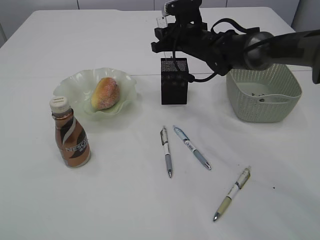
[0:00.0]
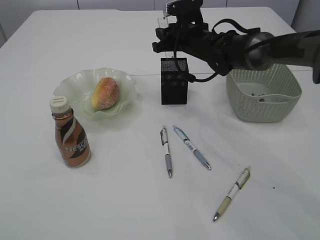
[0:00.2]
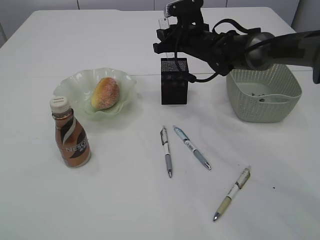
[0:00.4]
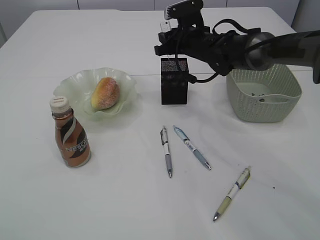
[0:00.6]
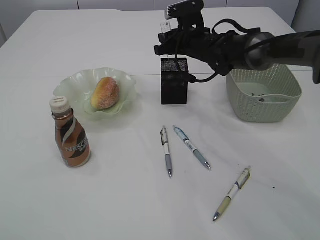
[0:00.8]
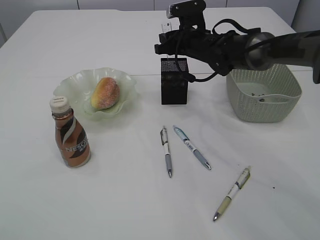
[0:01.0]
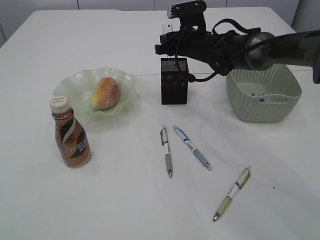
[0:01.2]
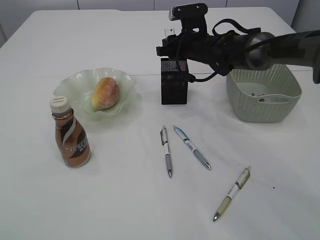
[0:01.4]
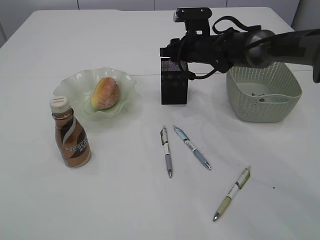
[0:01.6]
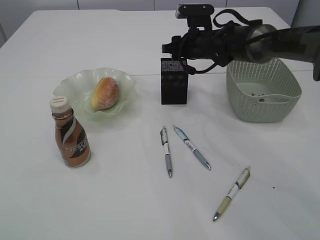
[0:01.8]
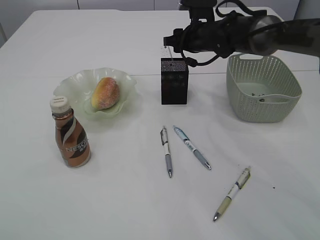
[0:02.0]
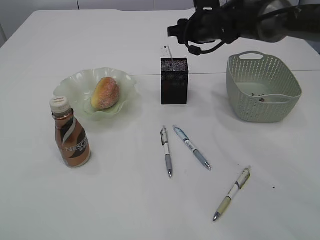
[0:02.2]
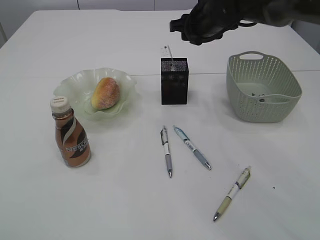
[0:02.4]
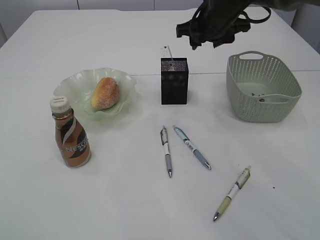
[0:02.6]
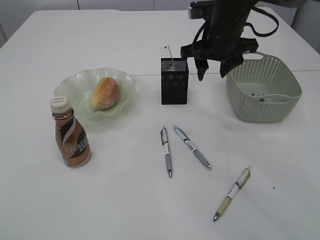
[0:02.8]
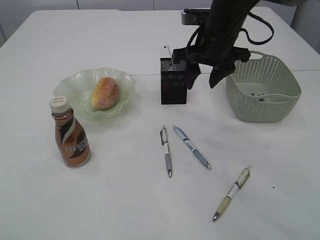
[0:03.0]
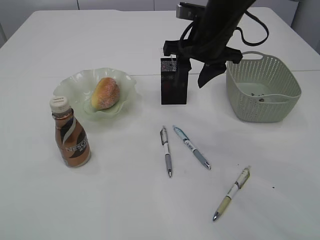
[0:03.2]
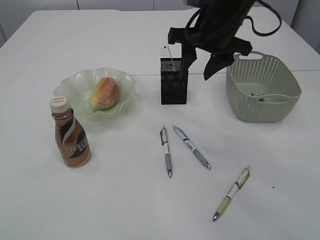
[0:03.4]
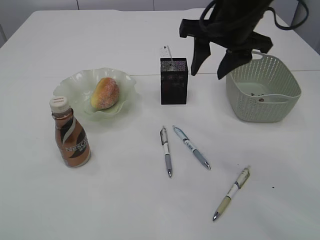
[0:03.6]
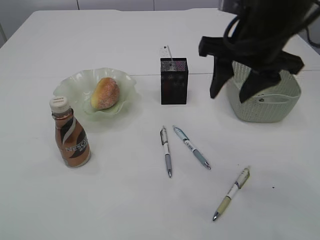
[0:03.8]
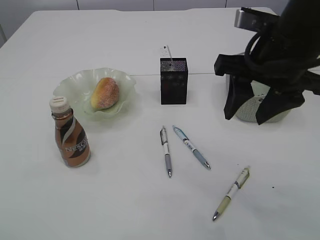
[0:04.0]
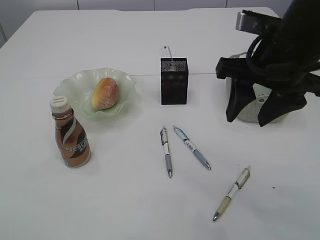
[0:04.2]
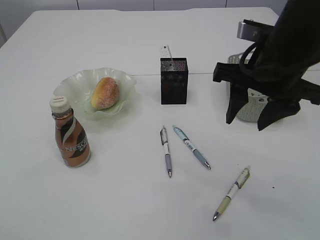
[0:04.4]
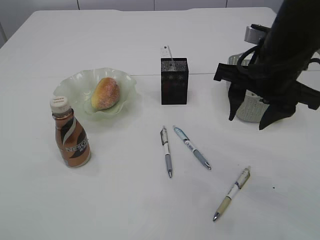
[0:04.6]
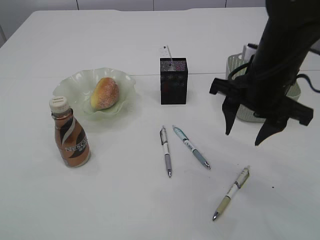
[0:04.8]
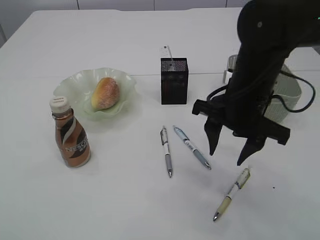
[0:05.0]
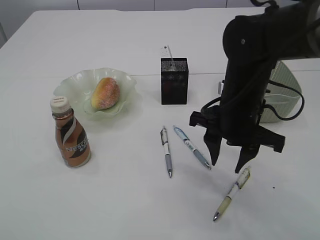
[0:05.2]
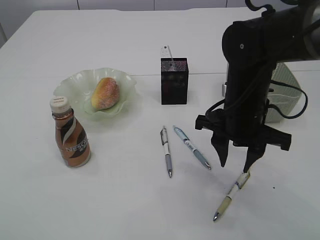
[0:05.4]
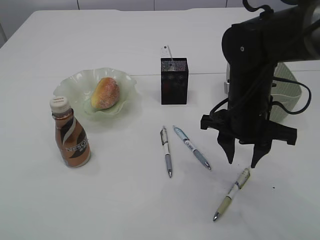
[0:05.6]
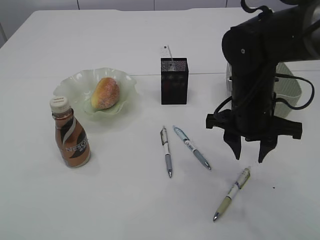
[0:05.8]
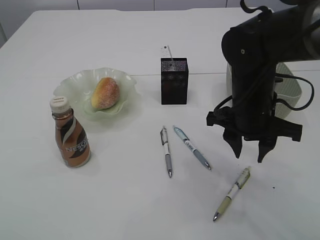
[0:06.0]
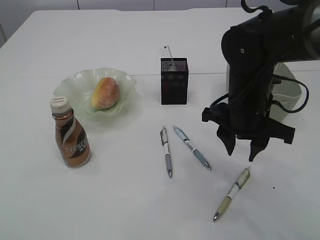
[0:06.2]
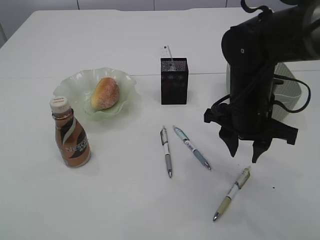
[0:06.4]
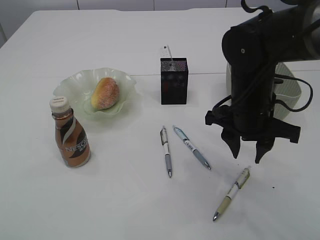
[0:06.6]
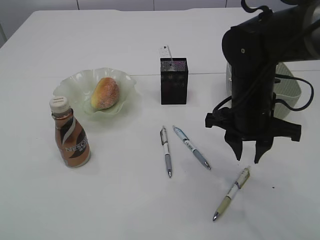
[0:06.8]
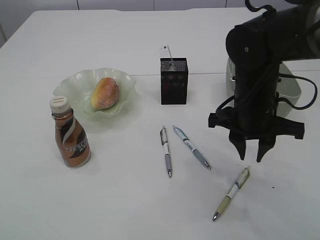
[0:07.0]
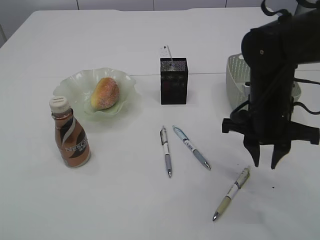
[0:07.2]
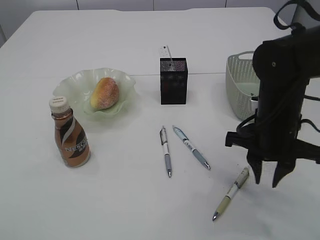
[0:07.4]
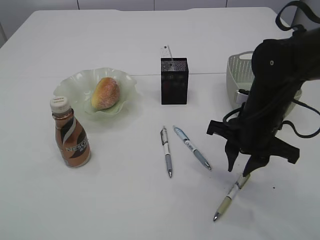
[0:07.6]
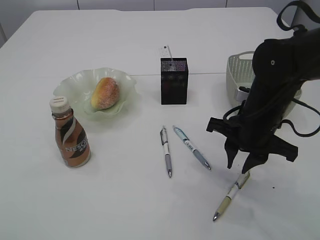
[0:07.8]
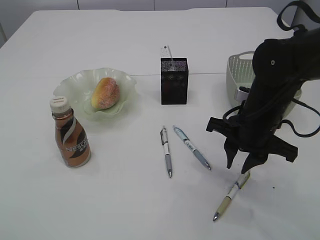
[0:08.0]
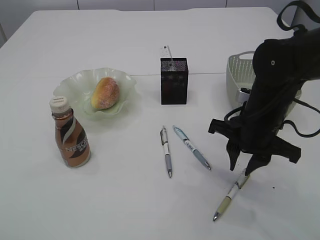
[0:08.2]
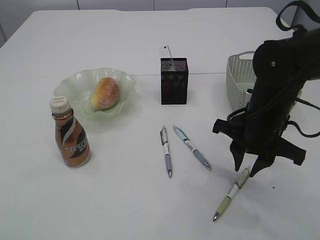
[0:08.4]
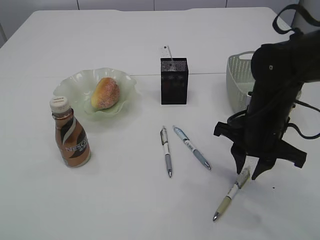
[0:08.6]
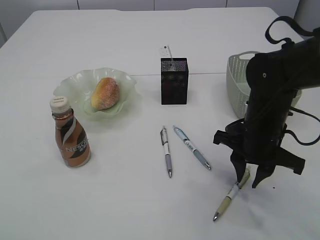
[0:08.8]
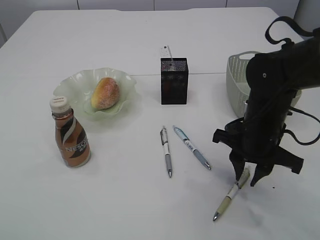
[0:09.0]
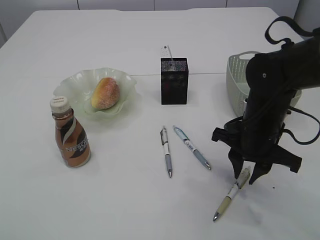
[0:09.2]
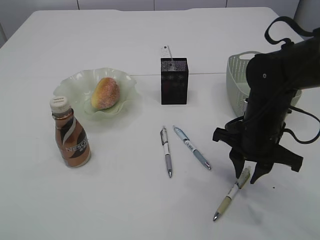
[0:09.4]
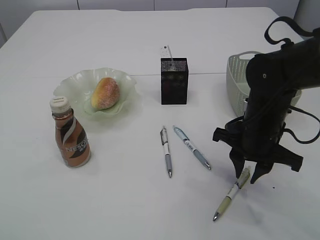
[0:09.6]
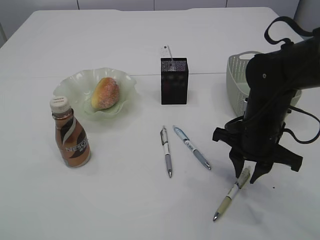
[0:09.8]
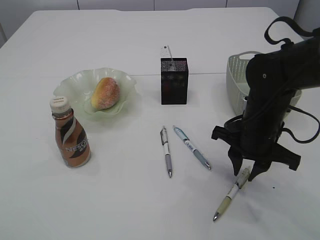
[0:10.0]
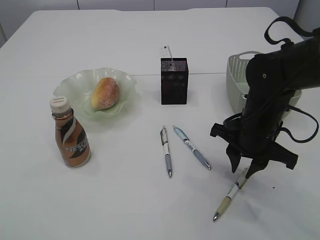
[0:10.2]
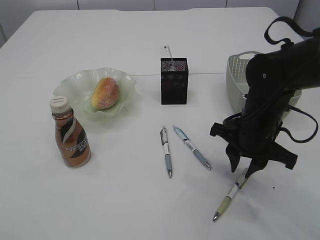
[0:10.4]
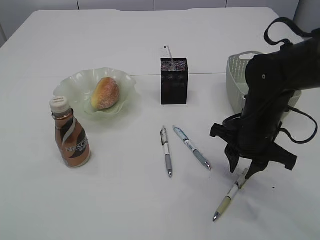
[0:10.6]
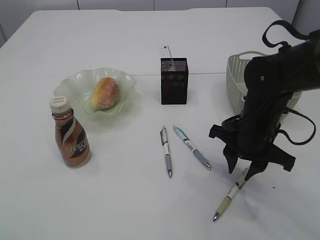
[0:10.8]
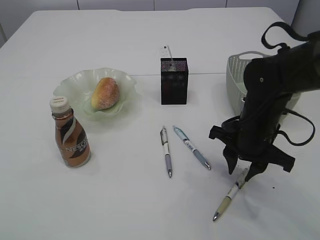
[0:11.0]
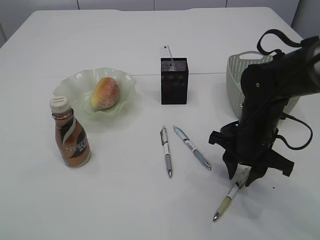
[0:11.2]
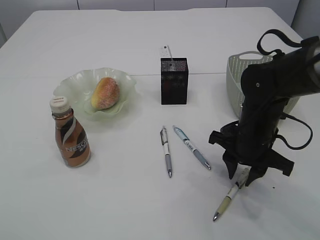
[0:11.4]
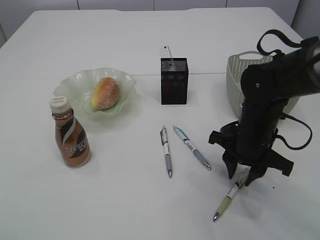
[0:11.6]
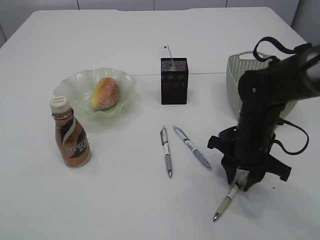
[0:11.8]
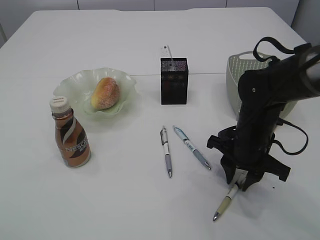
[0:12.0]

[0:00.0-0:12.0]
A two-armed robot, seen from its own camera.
Step, 0:00.0 to 0:02.2: Place the ruler into the pen holder.
0:01.6 to 0:03.0: The right gripper heads backward and upward, covering approximately 15 cm.
0:03.0 to 0:04.4: The right gripper heads backward, covering about 15 cm.
0:04.4 to 0:06.0: The right gripper travels downward by some 10 cm.
0:06.0 to 0:10.4: There are only small adjustments of the grippers.
0:10.4 to 0:12.0: The grippers move only a little.

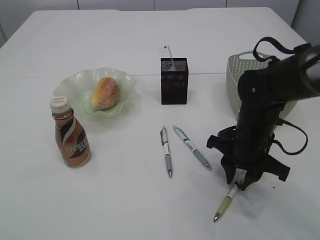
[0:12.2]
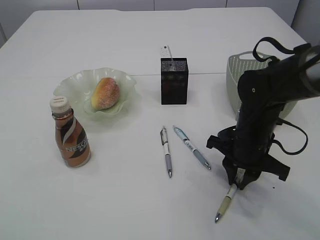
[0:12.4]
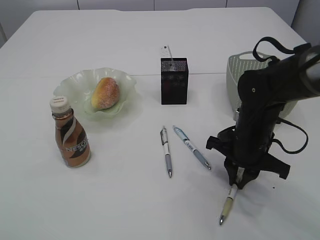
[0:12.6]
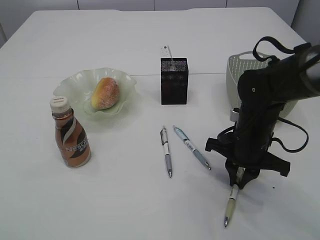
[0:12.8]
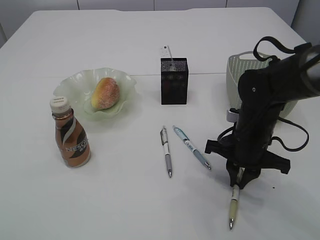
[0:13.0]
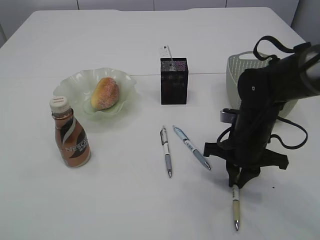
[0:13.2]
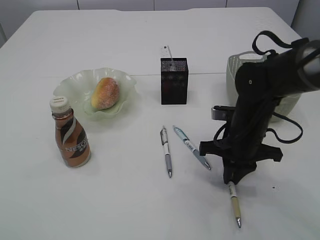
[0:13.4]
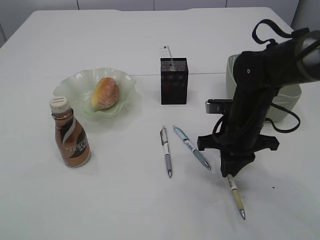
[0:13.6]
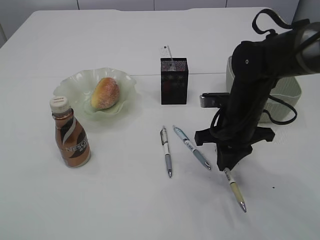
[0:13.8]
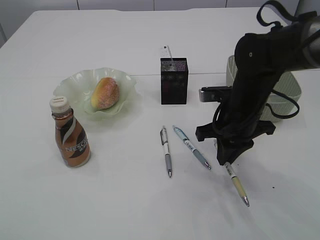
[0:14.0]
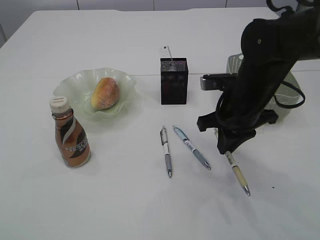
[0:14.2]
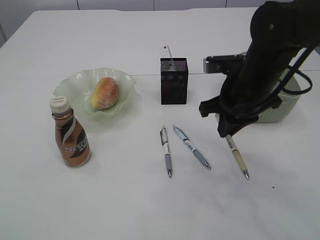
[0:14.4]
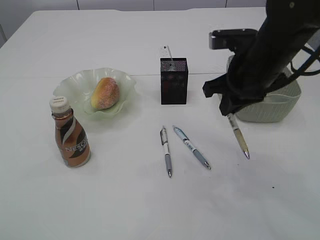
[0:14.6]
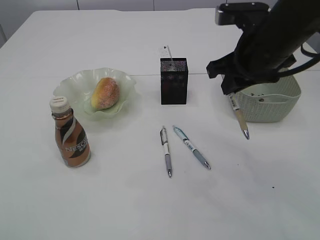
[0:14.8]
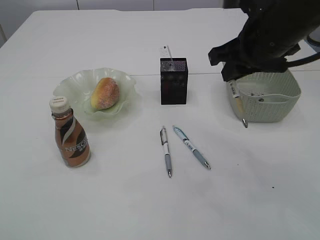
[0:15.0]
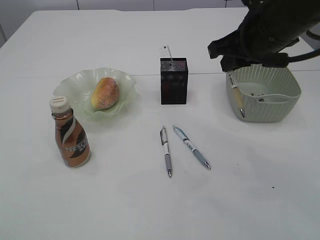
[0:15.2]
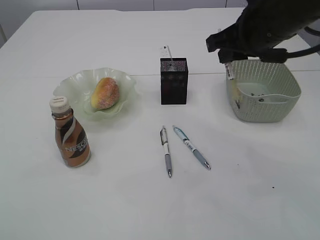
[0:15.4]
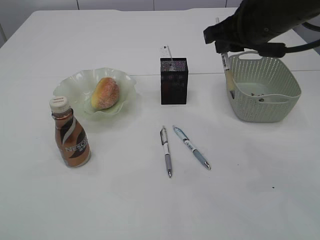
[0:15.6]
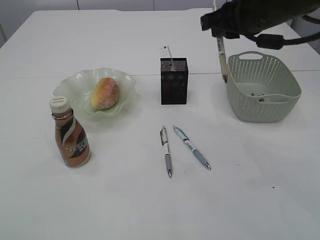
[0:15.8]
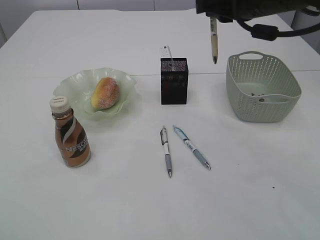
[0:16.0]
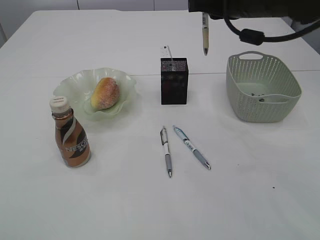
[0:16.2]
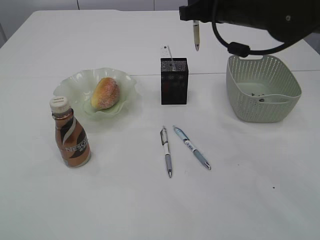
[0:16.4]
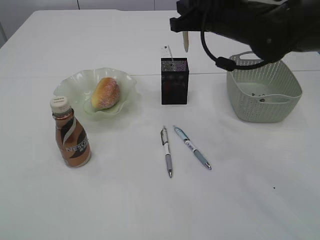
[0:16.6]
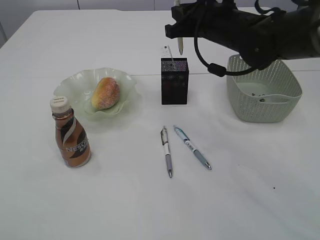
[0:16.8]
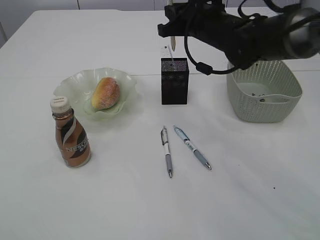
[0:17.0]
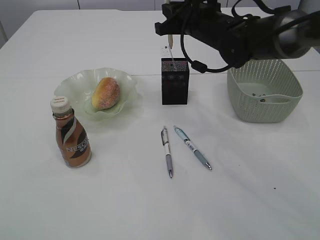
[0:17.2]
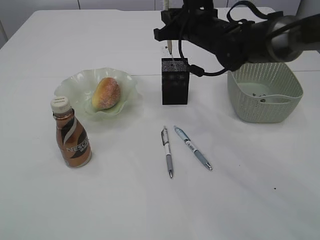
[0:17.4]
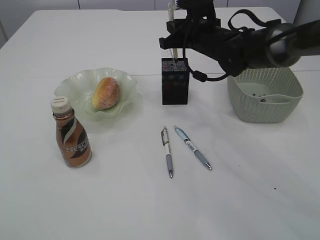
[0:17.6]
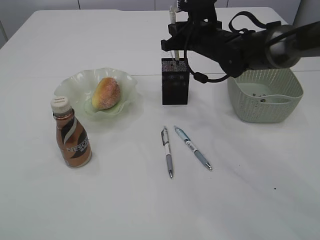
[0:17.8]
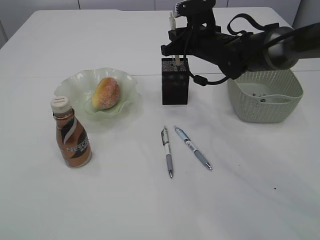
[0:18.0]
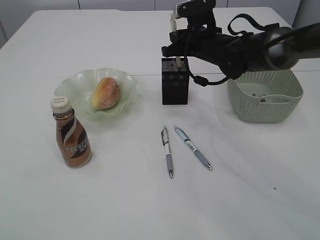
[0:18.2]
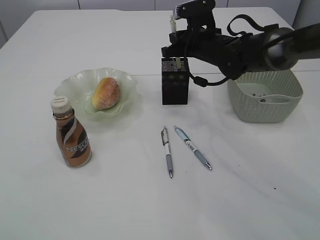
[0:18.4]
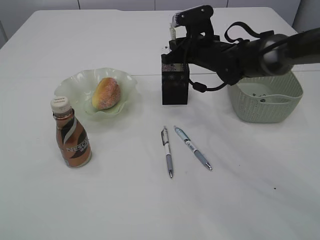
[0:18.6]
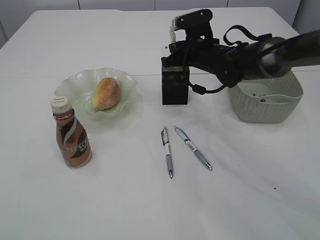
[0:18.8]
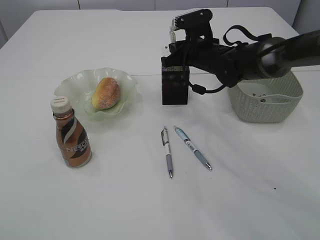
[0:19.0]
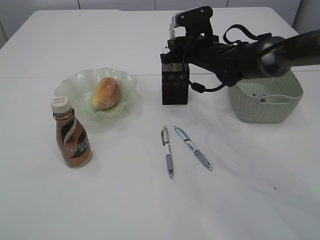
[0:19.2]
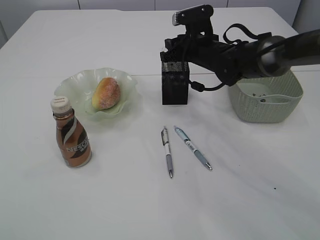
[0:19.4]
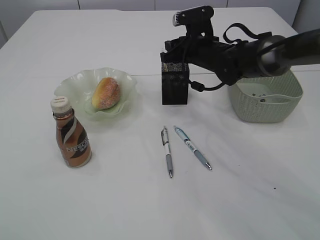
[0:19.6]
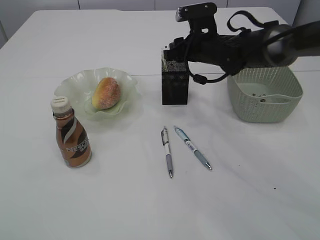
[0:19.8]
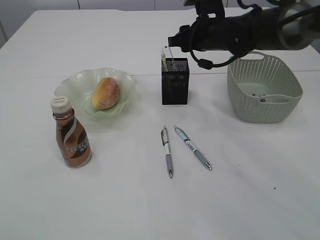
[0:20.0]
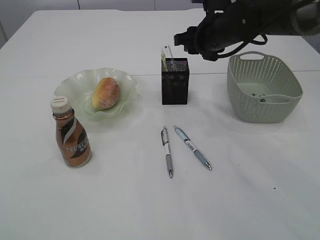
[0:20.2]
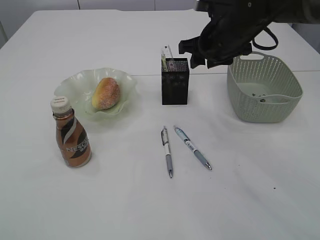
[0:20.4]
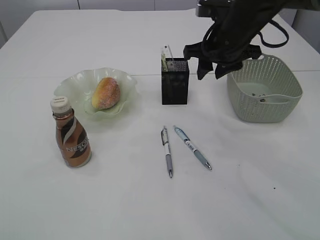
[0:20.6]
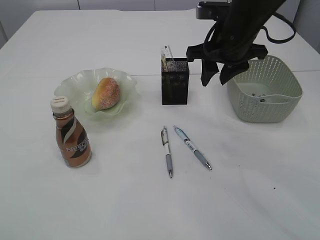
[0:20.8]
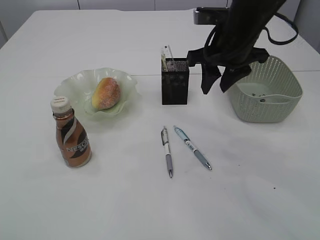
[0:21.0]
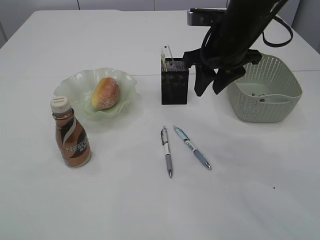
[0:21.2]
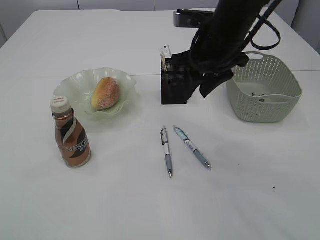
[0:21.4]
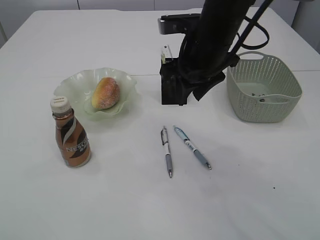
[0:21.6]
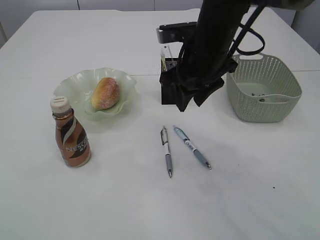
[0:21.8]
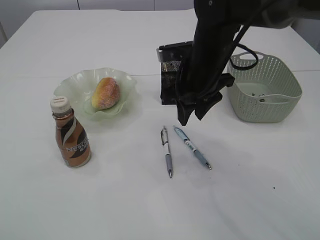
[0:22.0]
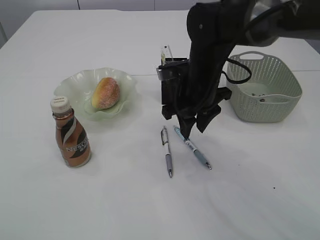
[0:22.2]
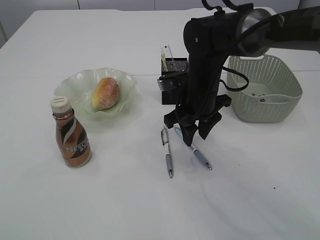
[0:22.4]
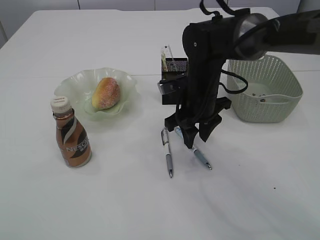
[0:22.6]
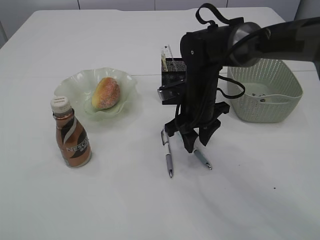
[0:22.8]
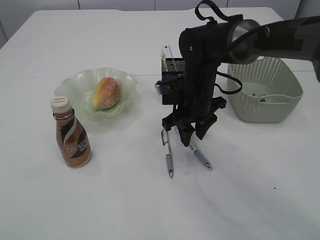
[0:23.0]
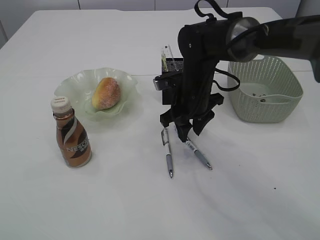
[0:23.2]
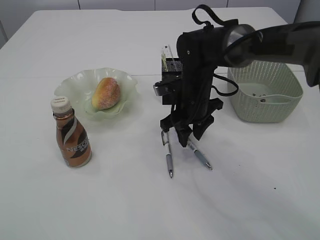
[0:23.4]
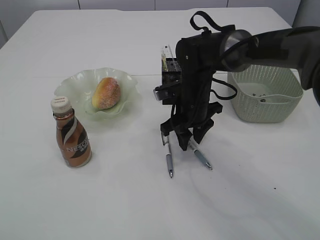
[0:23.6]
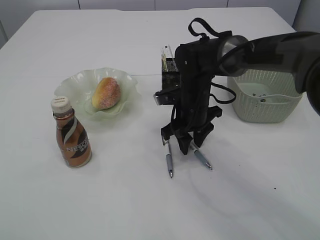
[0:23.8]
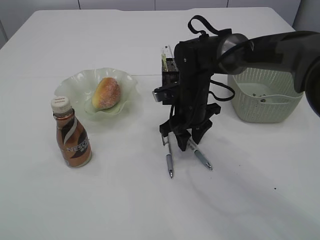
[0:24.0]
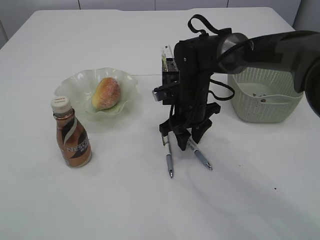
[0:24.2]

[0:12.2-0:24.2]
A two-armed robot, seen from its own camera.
Step, 0:12.2 to 0:14.4: Pick up the pen with right arm.
Step, 0:14.6 to 0:19.8: Place the pen into the pen holder.
0:13.8 to 0:15.2: The right gripper travels upward by approximately 15 cm.
0:15.2 to 0:16.6: The right gripper heads forward, covering approximately 10 cm.
0:16.6 to 0:18.2: The right gripper goes roughly 10 cm downward and forward.
0:18.2 to 0:19.8: The right gripper opens its fingers.
0:19.8 to 0:21.2: The right gripper goes some 15 cm backward and upward.
0:21.2 to 0:22.6: The right gripper travels downward by about 10 cm.
0:22.6 to 0:24.2: There are only small adjustments of the grippers.
